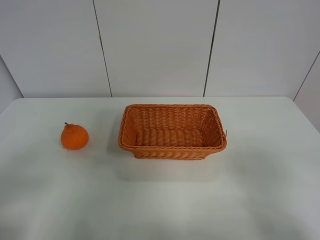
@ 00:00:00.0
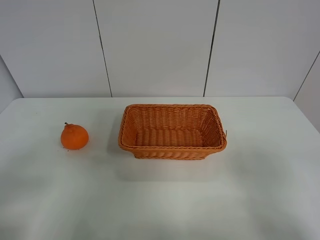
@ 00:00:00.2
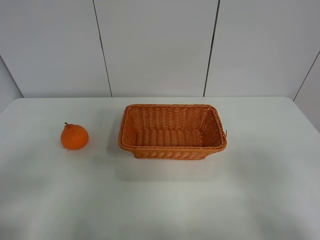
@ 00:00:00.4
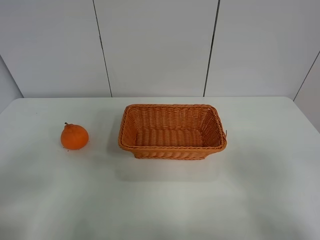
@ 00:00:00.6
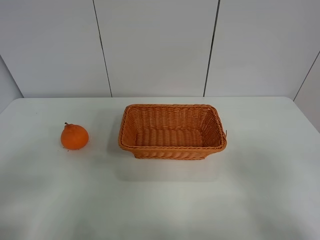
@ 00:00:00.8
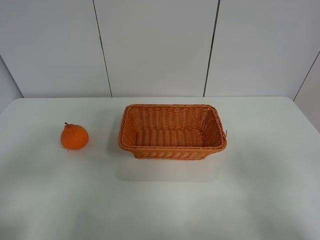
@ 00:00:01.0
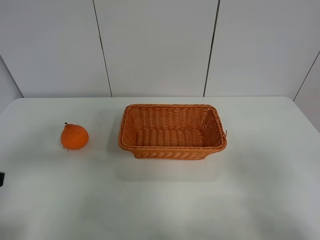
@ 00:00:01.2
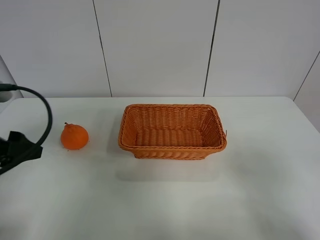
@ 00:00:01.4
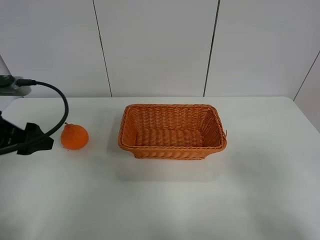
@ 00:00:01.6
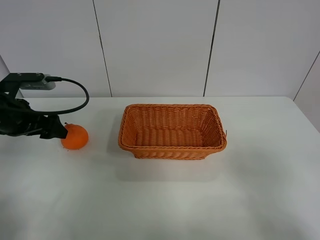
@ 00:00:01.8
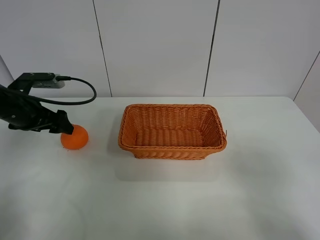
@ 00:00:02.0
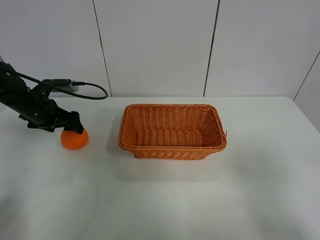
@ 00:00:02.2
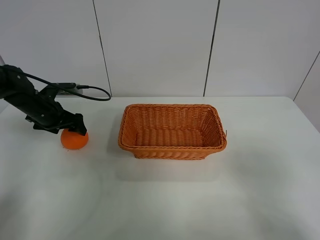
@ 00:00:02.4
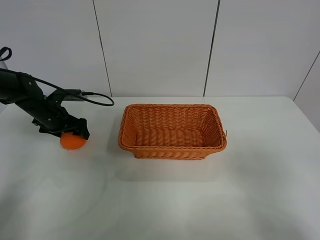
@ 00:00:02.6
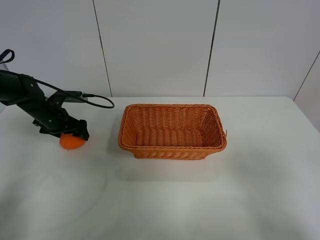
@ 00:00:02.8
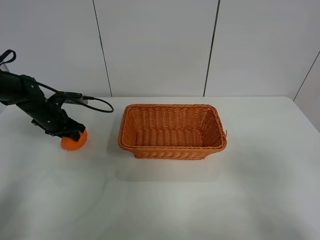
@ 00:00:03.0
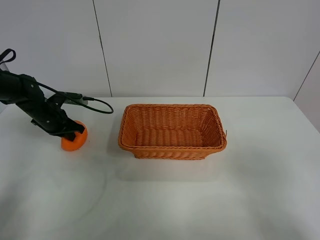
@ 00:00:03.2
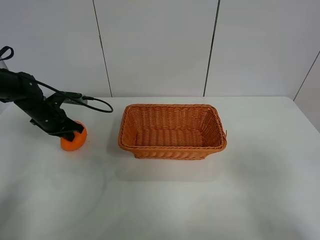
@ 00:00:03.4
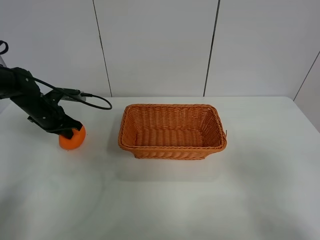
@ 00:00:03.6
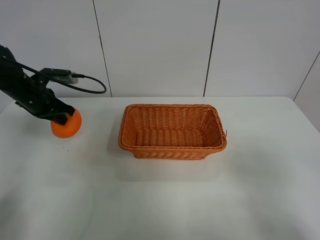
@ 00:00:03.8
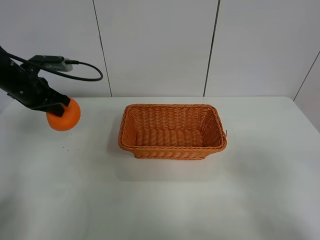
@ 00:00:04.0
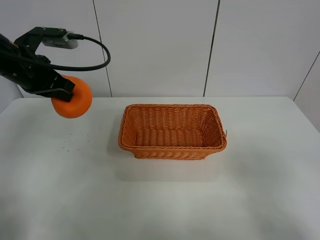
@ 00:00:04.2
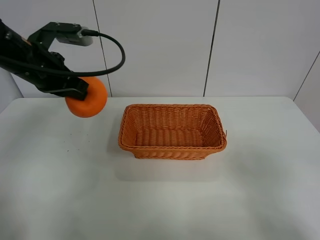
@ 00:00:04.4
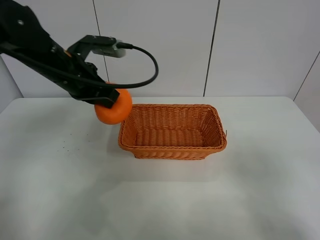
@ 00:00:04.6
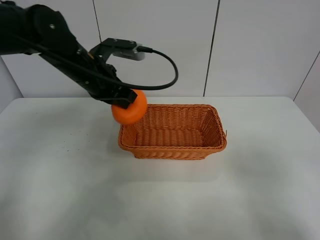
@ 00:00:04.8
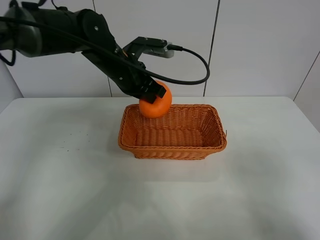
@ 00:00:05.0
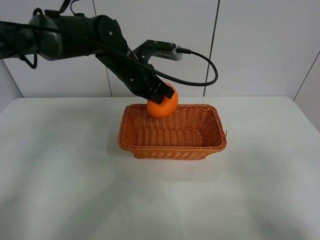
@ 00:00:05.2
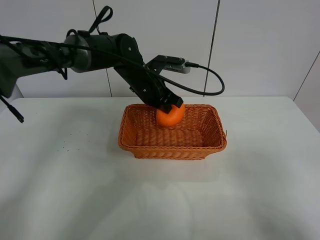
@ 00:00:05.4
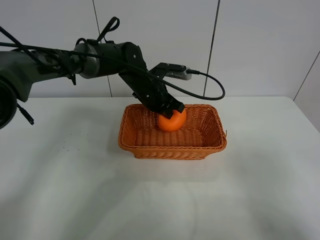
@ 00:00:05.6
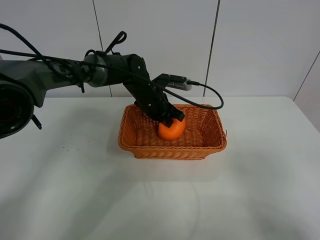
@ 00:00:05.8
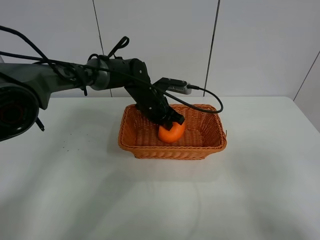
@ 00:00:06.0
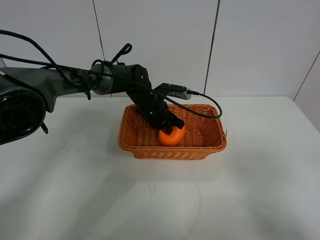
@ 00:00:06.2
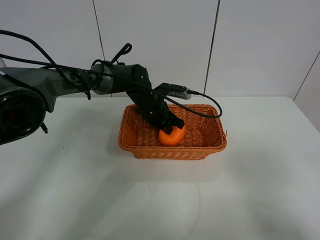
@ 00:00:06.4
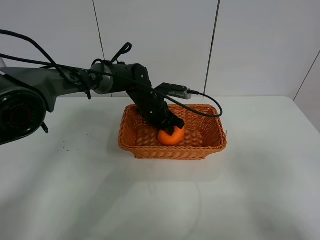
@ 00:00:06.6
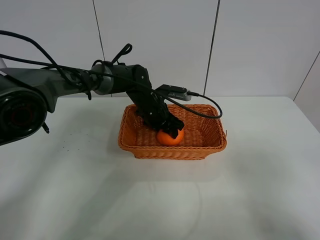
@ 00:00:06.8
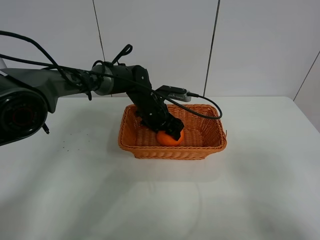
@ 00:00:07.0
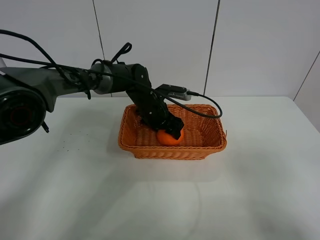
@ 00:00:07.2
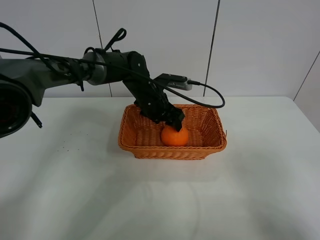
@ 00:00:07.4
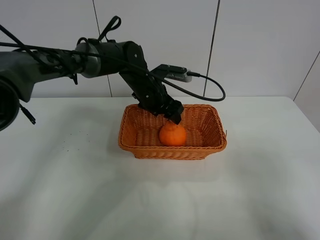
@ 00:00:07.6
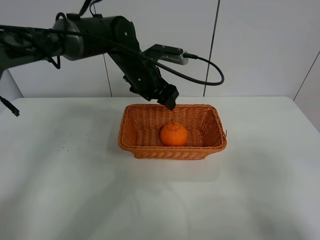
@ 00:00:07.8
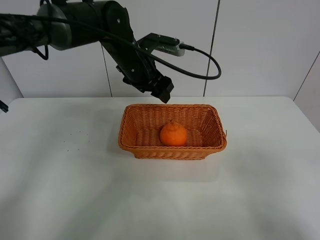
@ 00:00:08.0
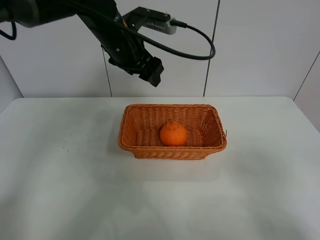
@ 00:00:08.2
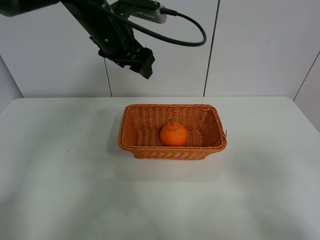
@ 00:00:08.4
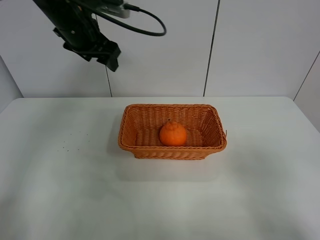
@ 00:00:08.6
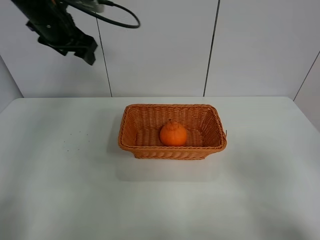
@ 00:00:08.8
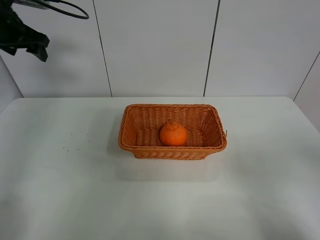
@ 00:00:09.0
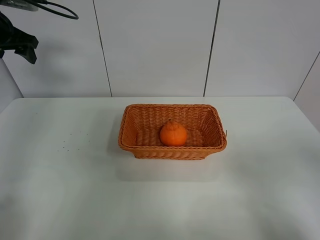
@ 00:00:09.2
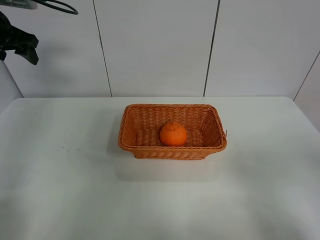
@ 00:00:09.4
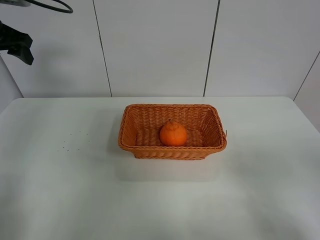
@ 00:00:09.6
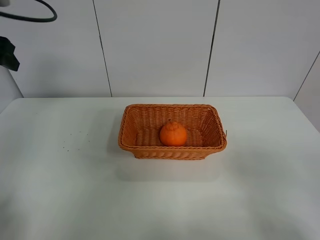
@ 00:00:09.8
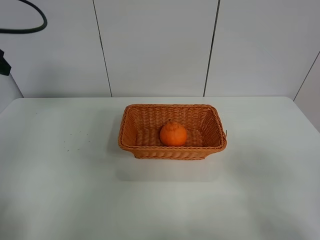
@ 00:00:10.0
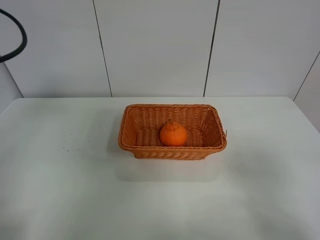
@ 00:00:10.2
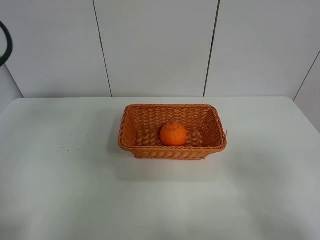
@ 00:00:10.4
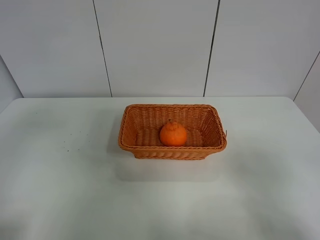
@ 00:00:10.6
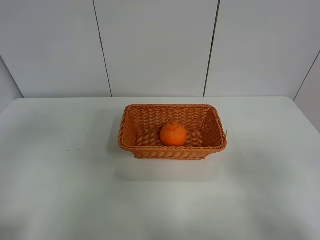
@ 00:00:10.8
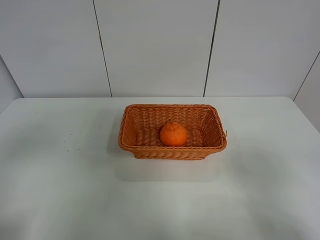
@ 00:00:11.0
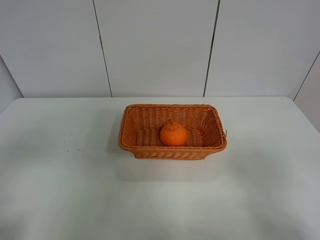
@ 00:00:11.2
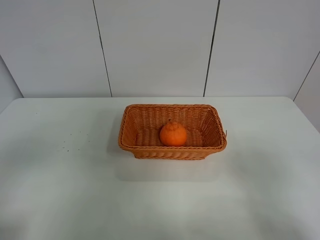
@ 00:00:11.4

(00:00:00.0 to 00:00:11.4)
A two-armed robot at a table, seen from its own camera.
Task of the whole recording: left gripper grabs oranges and puts them in the basket.
Step, 00:00:00.0 - 00:00:03.2: Grasp the orange with left gripper.
Step, 00:00:03.4 - 00:00:08.6: Place the orange in the basket with left gripper.
00:00:00.0 - 00:00:01.4: The left gripper is displaced forward by some 20 cm.
00:00:01.4 - 00:00:02.8: The left gripper travels forward and downward by about 25 cm.
00:00:02.8 - 00:00:04.2: The left gripper travels upward and backward by roughly 20 cm, and closes up.
00:00:04.2 - 00:00:05.6: The left gripper travels to the right, downward and forward by some 25 cm.
00:00:05.6 - 00:00:07.2: The left gripper moves downward, about 5 cm, and opens its fingers.
00:00:07.2 - 00:00:08.6: The left gripper travels upward and to the left by approximately 25 cm.
00:00:08.6 - 00:00:10.0: The left gripper shifts approximately 20 cm to the left and backward.
00:00:10.0 - 00:00:11.4: The left gripper heads backward, covering some 25 cm.

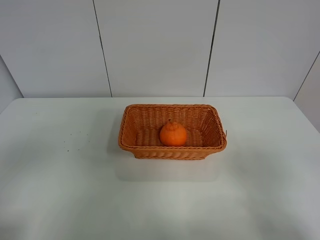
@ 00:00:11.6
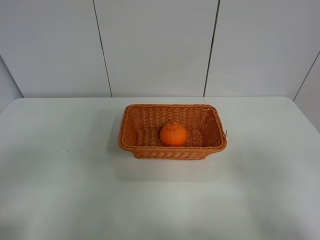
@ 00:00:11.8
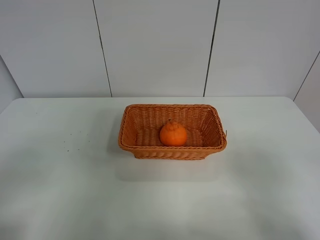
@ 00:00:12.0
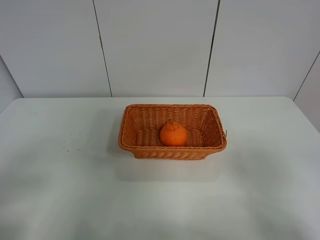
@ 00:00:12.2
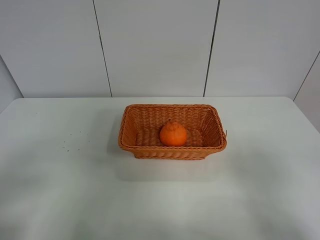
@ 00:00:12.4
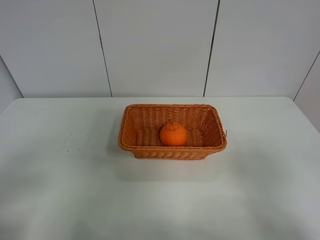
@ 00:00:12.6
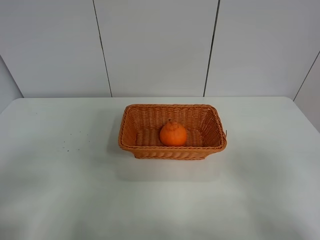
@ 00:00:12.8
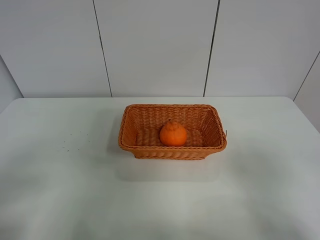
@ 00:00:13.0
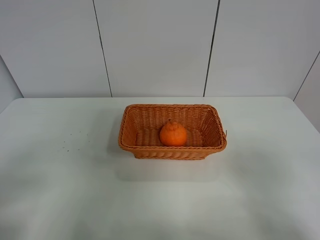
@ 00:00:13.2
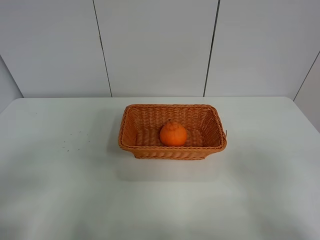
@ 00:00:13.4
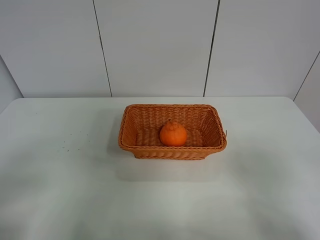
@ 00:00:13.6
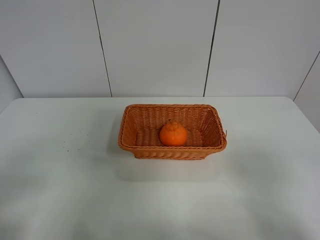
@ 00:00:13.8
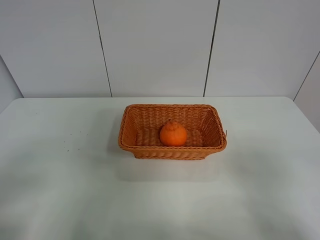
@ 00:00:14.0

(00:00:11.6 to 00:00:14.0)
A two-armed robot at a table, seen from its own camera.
Task of the whole recording: left gripper grabs oranges and puts them in the basket.
00:00:12.8 - 00:00:14.0: The two grippers keep their place.

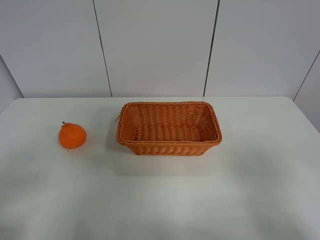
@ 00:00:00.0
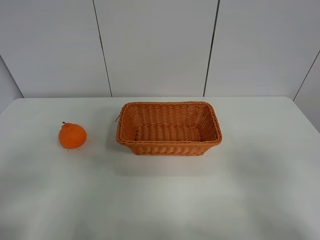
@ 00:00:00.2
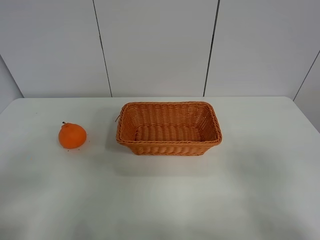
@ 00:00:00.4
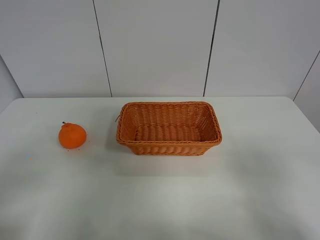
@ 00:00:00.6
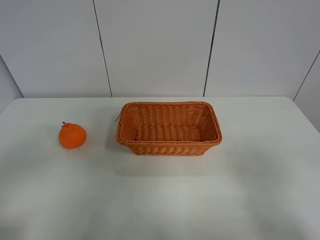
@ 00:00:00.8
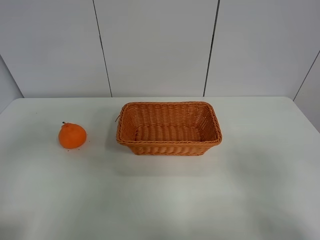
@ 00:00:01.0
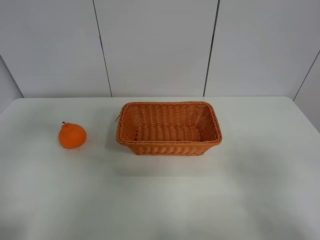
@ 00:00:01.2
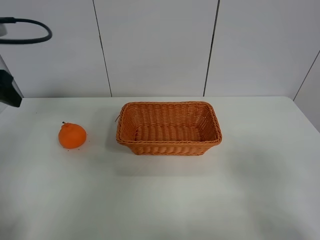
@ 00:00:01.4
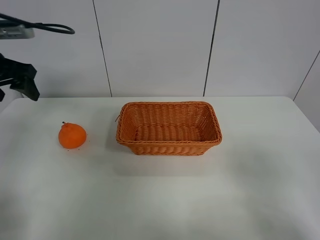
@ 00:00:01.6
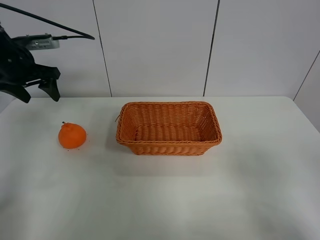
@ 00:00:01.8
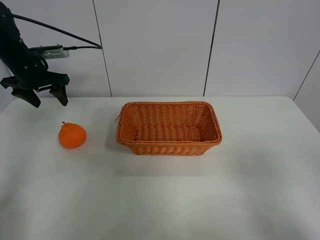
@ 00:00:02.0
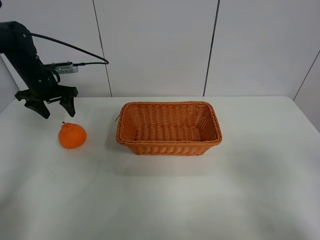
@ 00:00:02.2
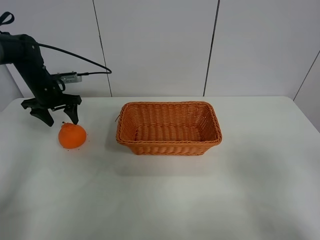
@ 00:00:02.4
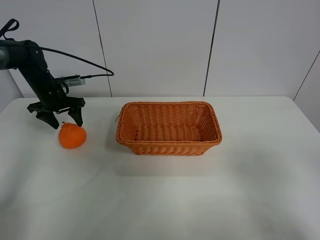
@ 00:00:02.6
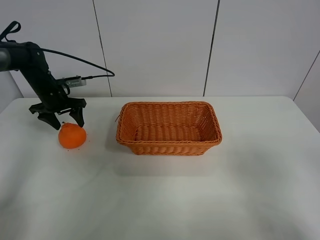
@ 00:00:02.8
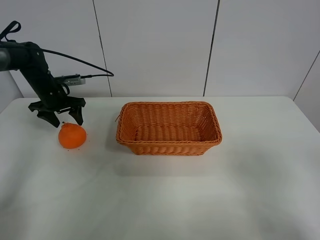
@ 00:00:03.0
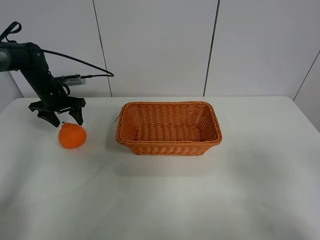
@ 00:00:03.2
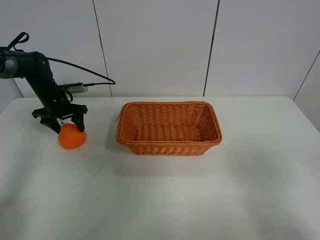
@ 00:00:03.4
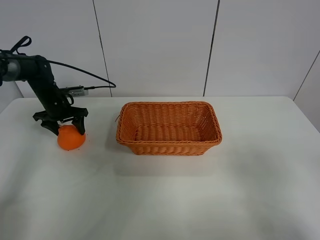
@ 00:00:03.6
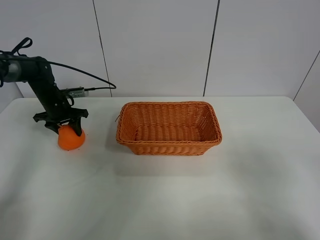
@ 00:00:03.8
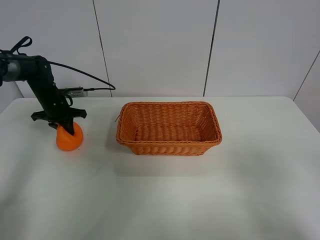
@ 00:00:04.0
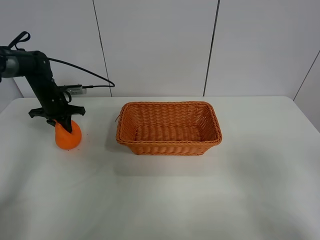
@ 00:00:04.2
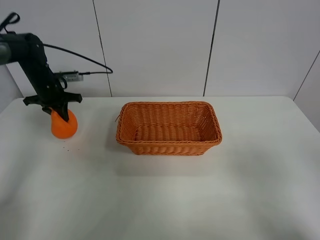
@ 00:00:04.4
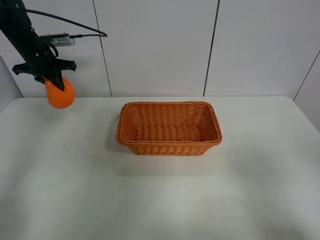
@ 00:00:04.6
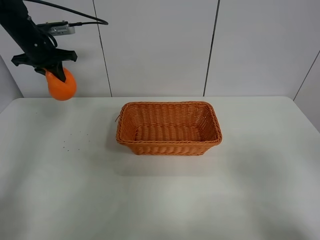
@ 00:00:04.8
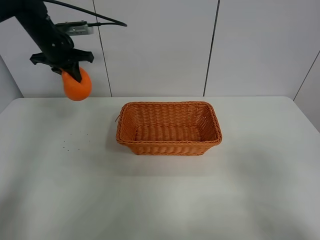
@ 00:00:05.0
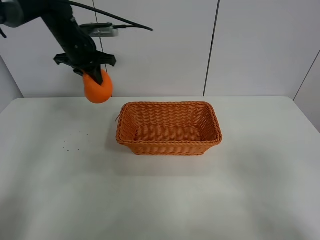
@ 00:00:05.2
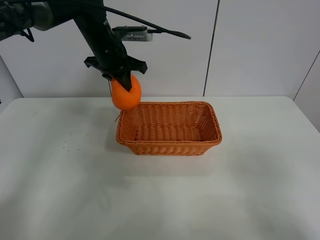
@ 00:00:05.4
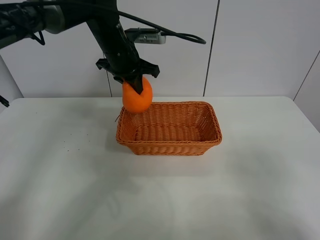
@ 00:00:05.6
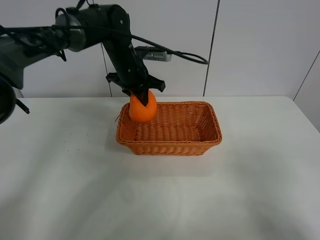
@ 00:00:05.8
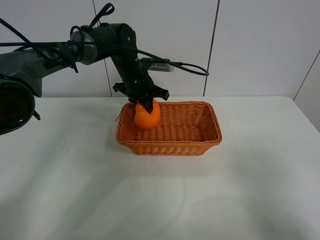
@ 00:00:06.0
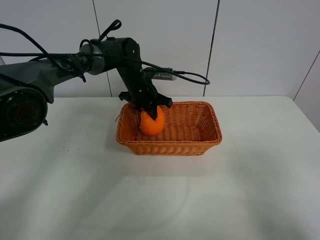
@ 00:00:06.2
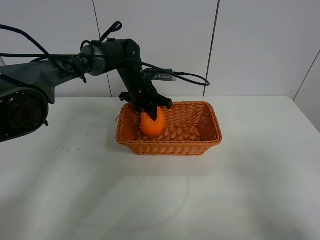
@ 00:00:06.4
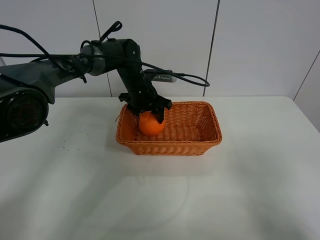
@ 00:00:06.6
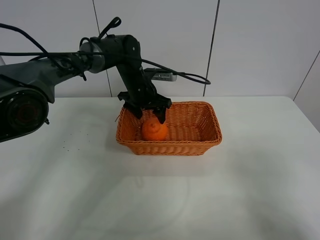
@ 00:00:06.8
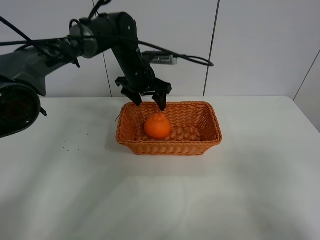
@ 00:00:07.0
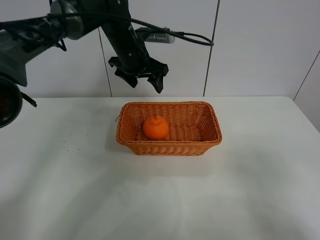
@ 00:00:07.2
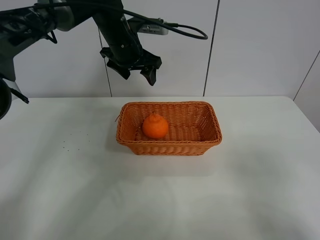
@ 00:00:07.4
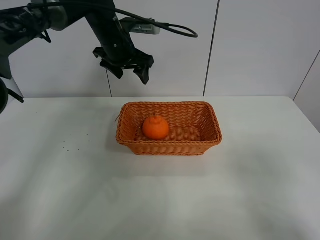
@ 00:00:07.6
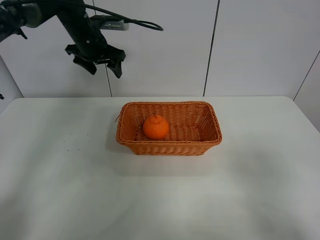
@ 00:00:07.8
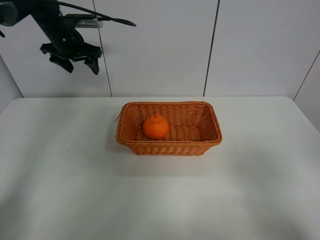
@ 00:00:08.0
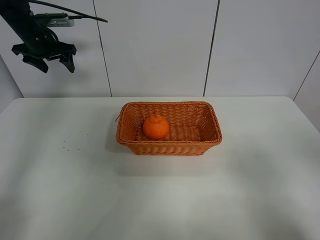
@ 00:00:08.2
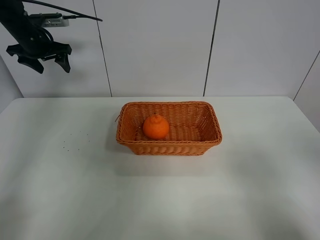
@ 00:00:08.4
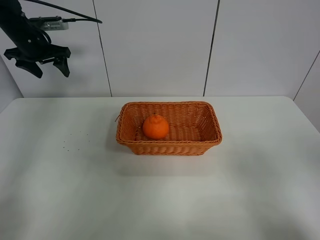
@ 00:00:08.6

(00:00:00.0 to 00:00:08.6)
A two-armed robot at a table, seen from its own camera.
Task of the whole recording: left gripper grabs oranges and puts them in the basket.
Step, 00:00:00.0 - 00:00:04.0: Grasp the orange with left gripper.
Step, 00:00:04.2 - 00:00:07.8: Place the orange in the basket with left gripper.
00:00:00.0 - 00:00:01.4: The left gripper travels forward by about 25 cm.
00:00:01.4 - 00:00:02.8: The left gripper travels forward and downward by approximately 25 cm.
00:00:02.8 - 00:00:04.4: The left gripper closes up.
00:00:04.4 - 00:00:05.8: The left gripper goes roughly 25 cm to the right.
00:00:05.8 - 00:00:07.2: The left gripper moves upward, roughly 5 cm, and opens.
00:00:07.2 - 00:00:08.6: The left gripper is displaced to the left by about 25 cm.
